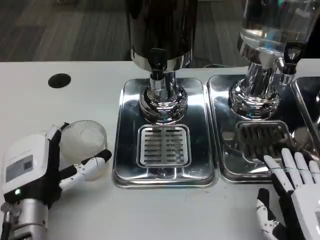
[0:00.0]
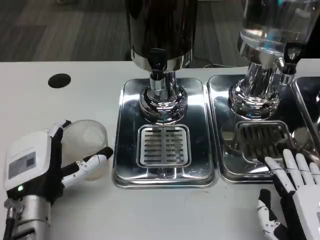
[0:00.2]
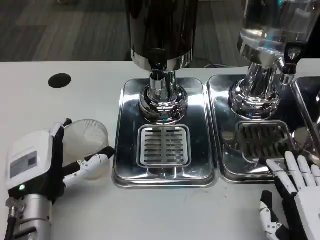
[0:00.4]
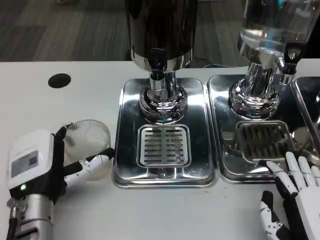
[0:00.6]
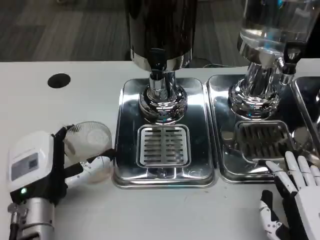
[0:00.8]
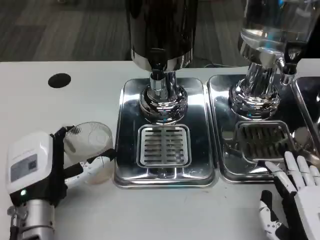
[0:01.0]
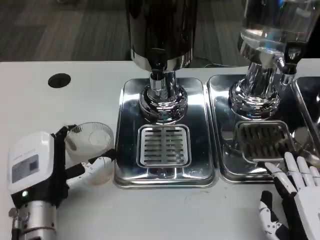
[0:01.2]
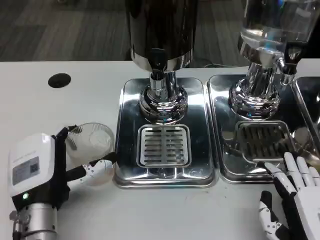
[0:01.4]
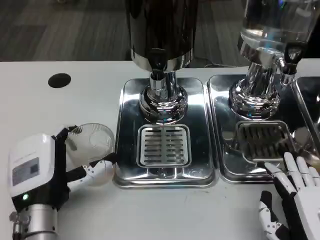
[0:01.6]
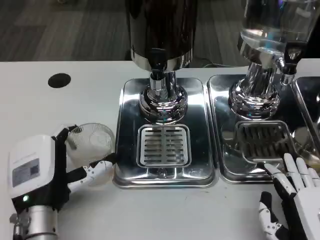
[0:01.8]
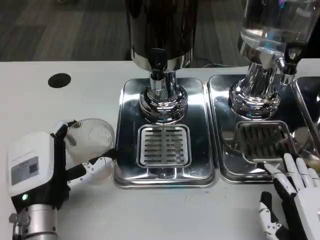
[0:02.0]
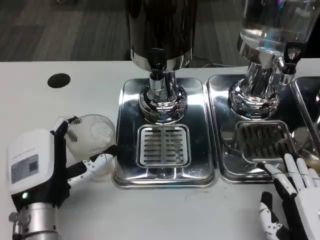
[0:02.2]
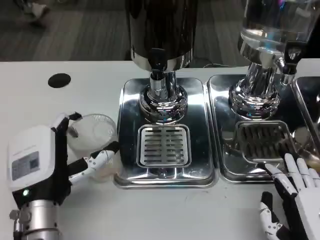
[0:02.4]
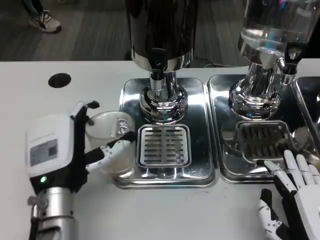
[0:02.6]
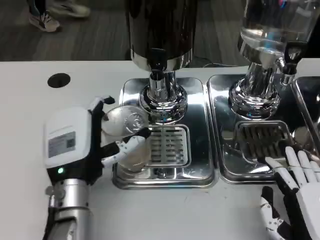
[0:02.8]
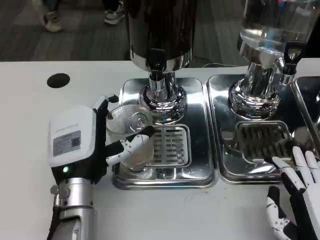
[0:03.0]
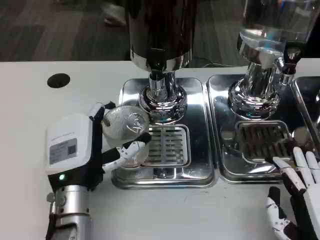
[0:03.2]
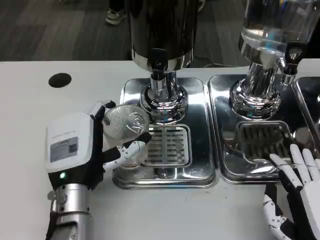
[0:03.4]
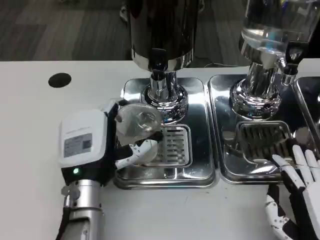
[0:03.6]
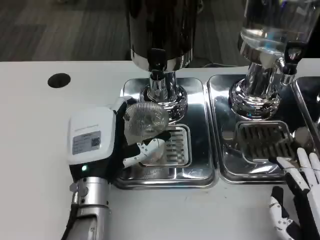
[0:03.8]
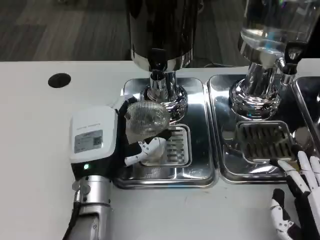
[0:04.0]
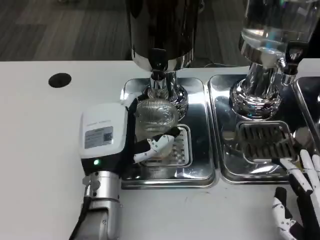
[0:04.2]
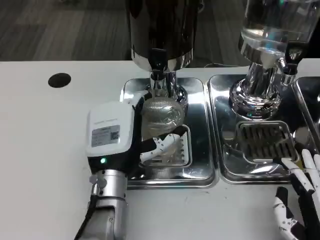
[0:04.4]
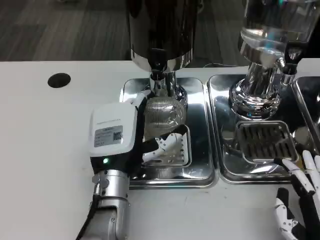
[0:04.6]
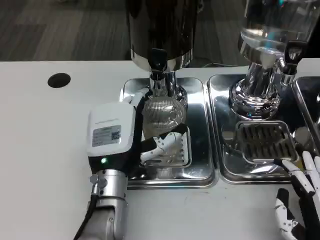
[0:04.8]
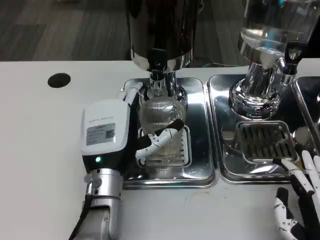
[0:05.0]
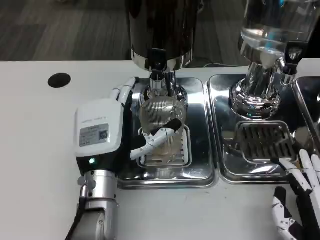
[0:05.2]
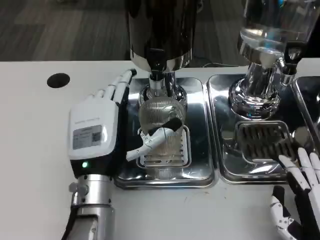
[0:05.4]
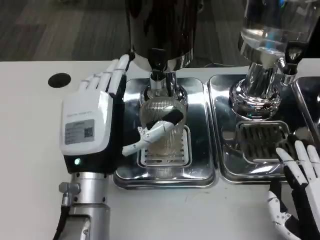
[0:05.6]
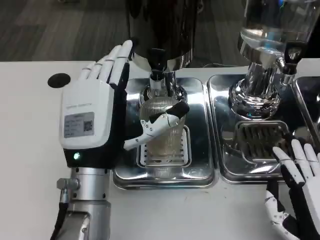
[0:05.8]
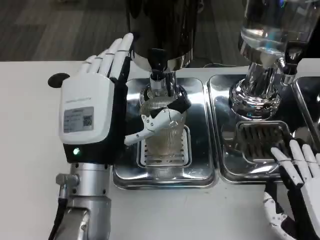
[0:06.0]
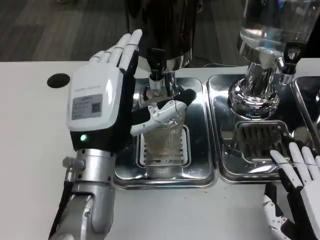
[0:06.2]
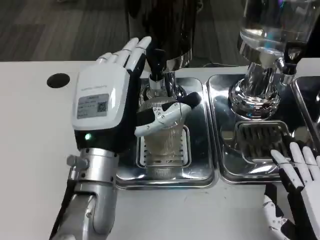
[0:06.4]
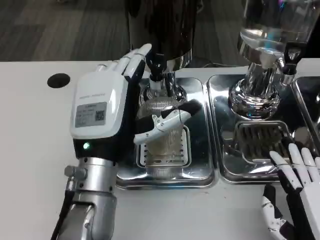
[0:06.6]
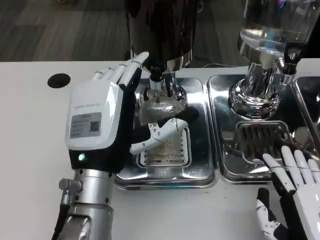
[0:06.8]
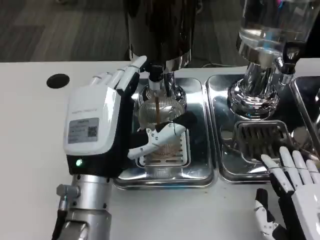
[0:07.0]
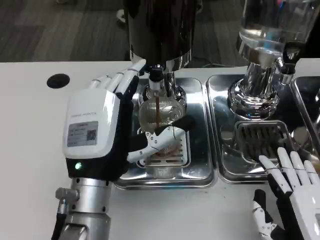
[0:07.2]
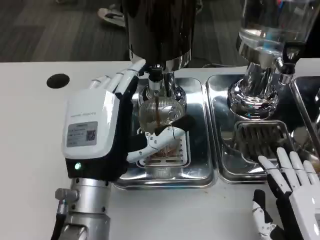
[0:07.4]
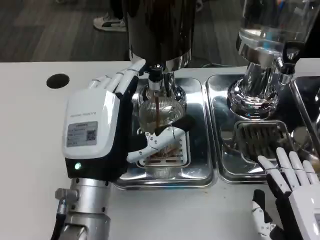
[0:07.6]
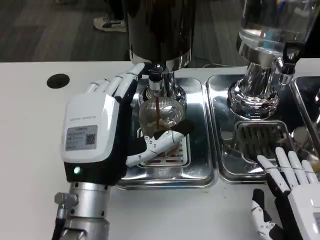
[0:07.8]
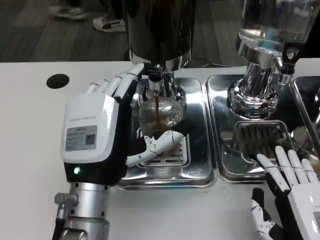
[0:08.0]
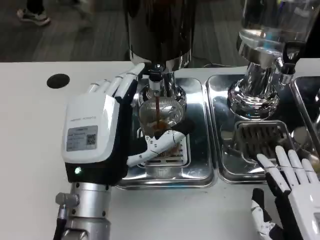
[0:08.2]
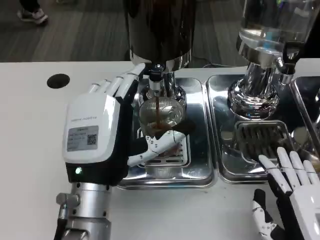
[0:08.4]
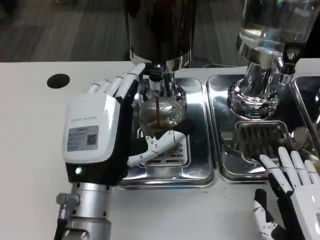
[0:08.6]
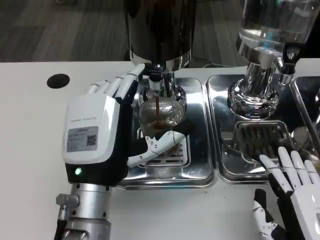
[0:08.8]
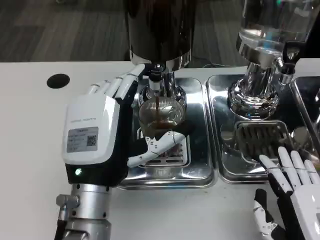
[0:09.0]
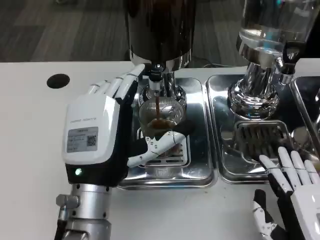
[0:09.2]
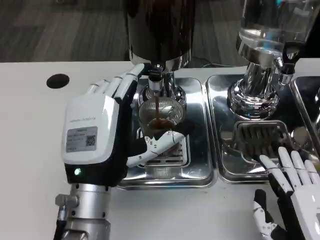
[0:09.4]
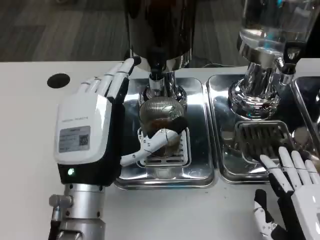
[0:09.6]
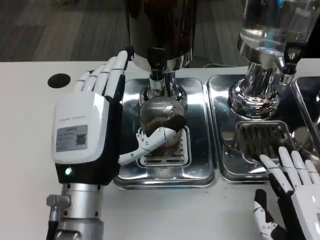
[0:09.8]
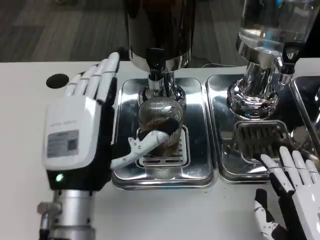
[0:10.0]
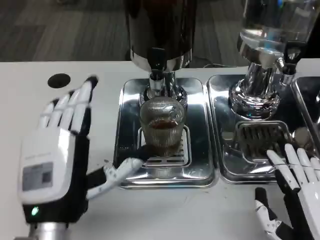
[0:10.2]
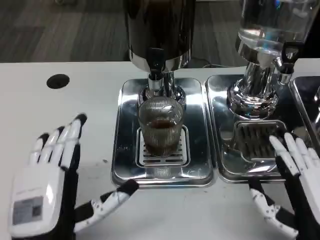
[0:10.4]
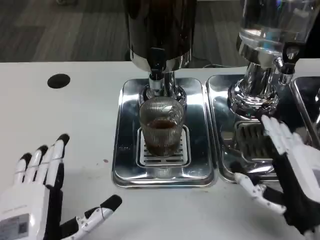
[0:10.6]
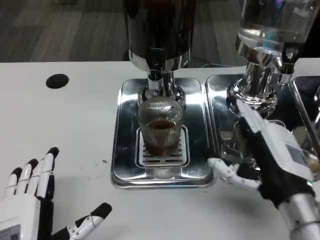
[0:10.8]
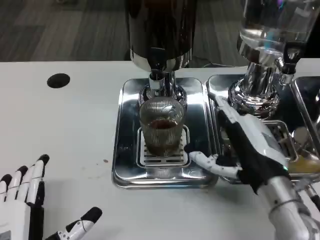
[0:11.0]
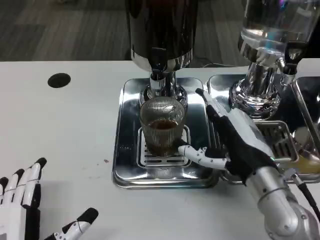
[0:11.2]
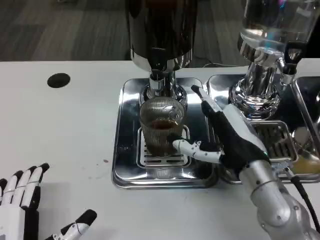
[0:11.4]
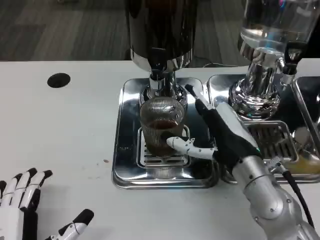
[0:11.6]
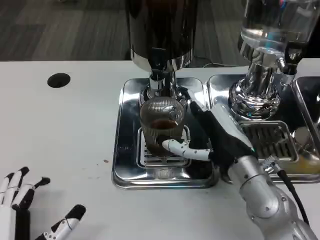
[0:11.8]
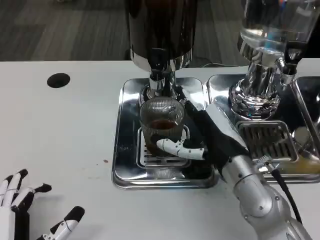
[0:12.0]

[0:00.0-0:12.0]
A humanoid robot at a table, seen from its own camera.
Task of the whole recording: Grasp the cup under the faucet to collect the drink, then remove the cup.
0:00.0 to 0:01.6: The hands stay close to where they were, moving slightly.
0:01.6 to 0:03.0: The left hand ends up about 5 cm from where it was.
0:04.4 to 0:06.0: The left hand heads upward, covering roughly 5 cm.
0:07.6 to 0:09.0: Both hands stay about where they are.
0:09.0 to 0:10.4: The left hand goes roughly 10 cm backward, to the left and downward.
0:10.4 to 0:12.0: The left hand changes place by roughly 5 cm. The right hand goes some 15 cm forward and to the left.

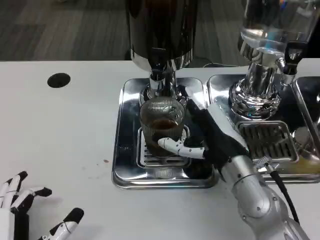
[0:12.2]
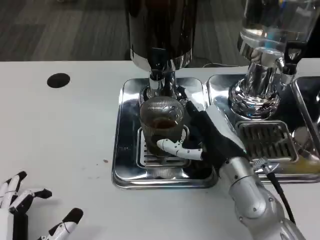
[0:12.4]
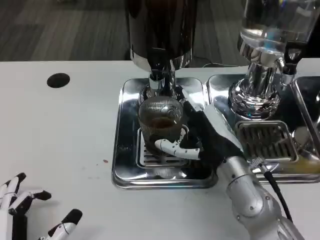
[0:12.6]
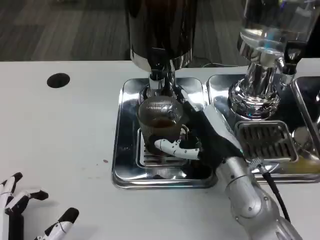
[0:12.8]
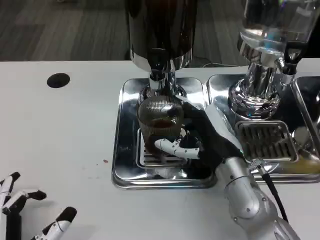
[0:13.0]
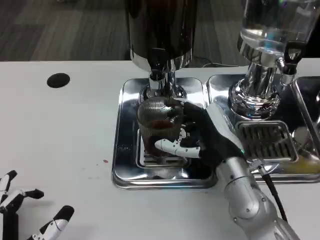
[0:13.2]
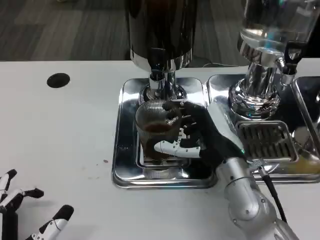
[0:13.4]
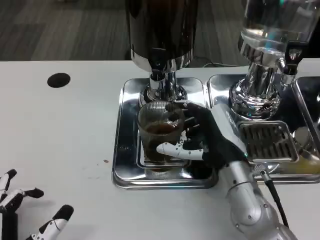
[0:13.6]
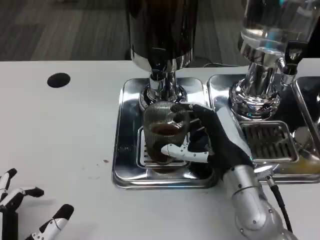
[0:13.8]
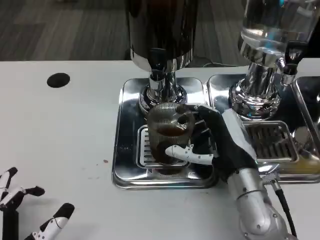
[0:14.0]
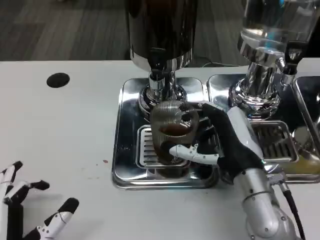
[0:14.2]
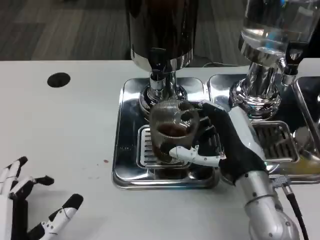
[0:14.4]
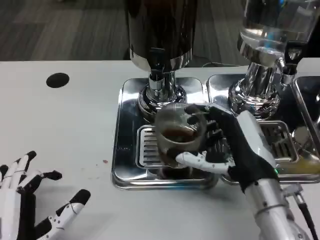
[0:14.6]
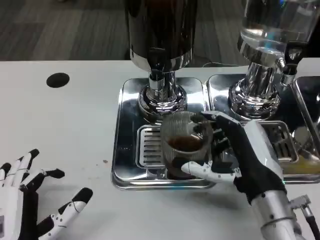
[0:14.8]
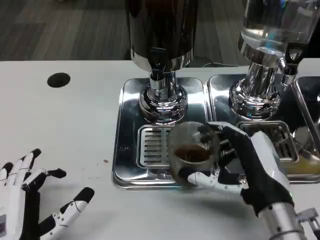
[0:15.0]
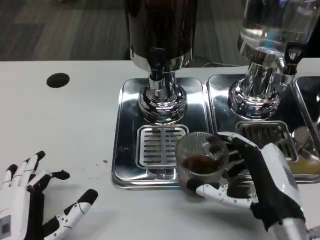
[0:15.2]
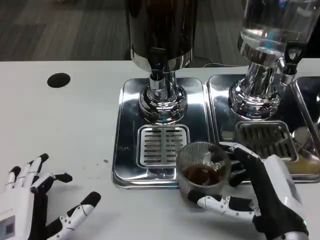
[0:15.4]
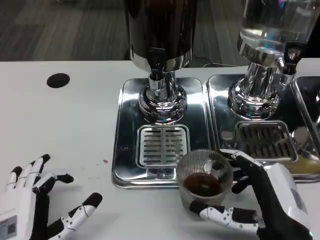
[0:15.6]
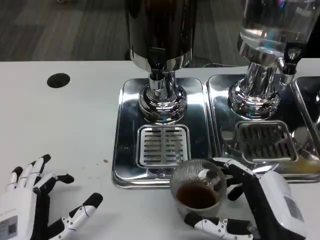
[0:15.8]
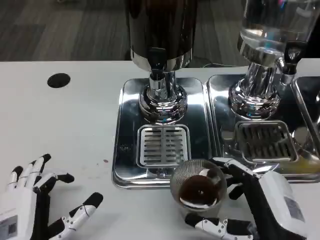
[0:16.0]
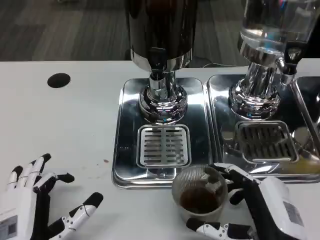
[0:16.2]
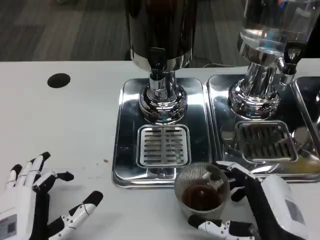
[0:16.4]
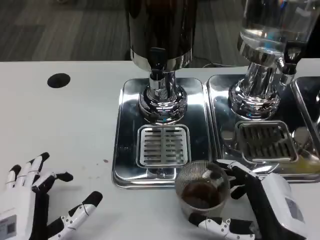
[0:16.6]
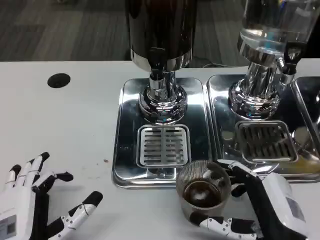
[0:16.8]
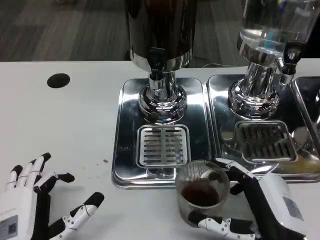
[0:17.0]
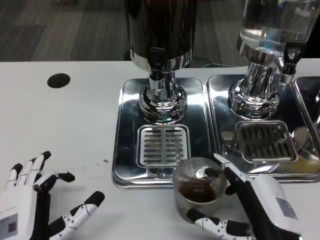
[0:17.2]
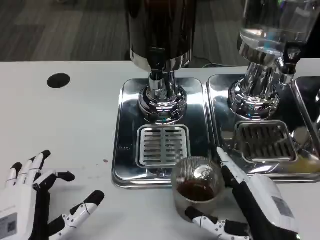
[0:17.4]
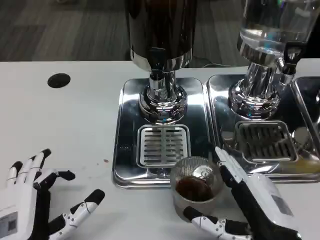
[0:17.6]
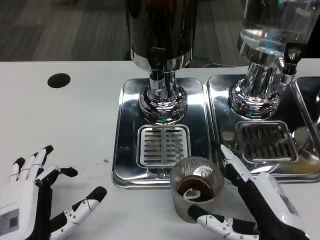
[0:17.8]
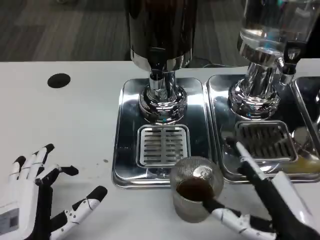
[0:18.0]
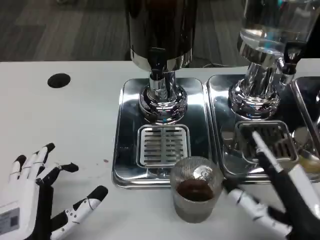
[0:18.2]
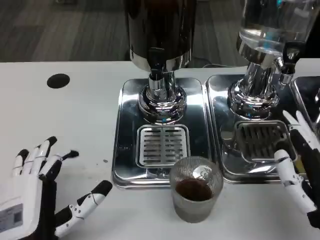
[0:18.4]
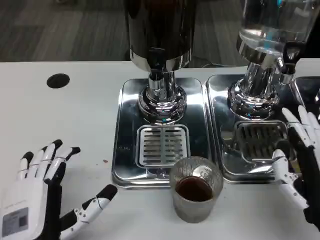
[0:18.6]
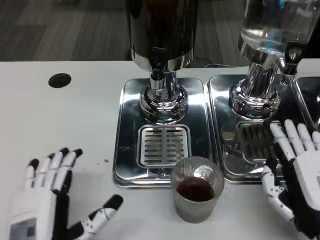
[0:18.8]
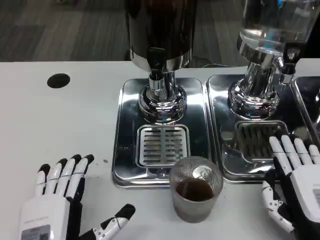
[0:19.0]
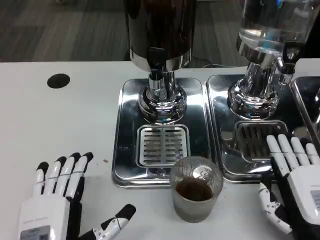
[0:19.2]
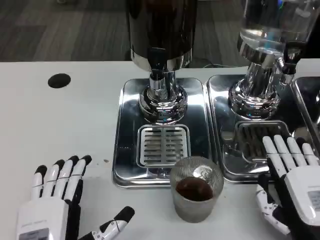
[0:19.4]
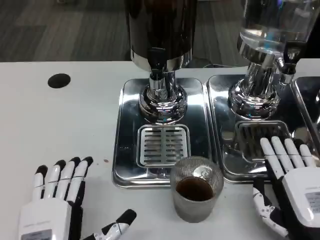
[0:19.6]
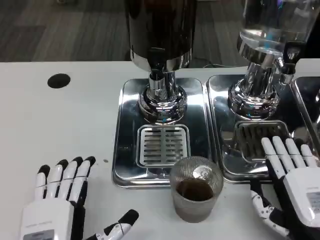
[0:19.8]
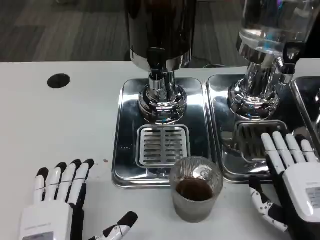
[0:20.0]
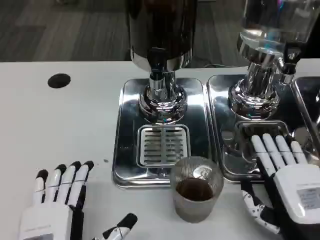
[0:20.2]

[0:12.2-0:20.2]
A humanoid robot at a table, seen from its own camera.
Task of the whole recording: Grasp the cup under the faucet to collect the drink, then remove the cup.
0:12.2 to 0:13.8: The hands make only small movements.
0:13.8 to 0:15.4: The right hand shifts approximately 10 cm backward.
0:15.4 to 0:17.0: The hands make only small movements.
0:17.0 to 0:18.6: The right hand changes place by some 5 cm.
0:18.6 to 0:20.2: There are only small adjustments of the hands.

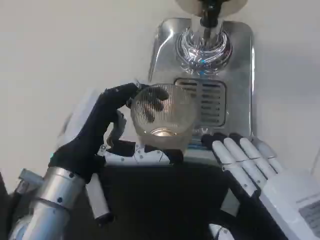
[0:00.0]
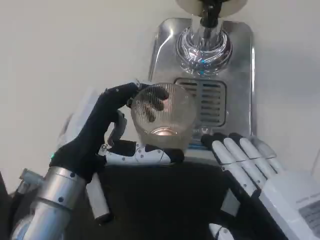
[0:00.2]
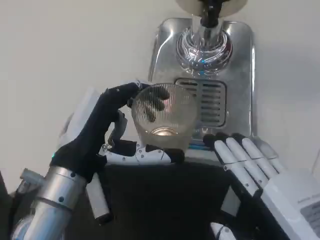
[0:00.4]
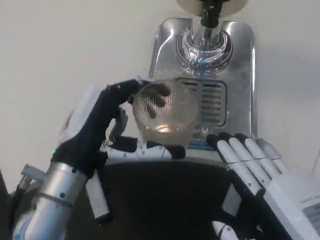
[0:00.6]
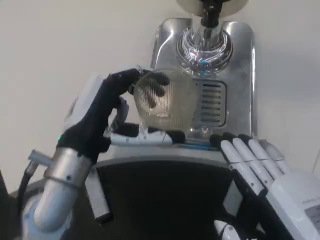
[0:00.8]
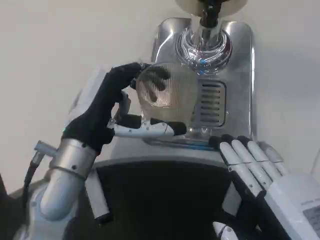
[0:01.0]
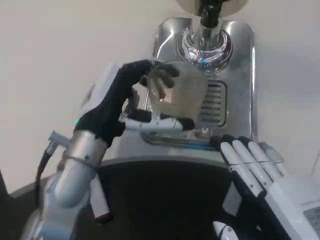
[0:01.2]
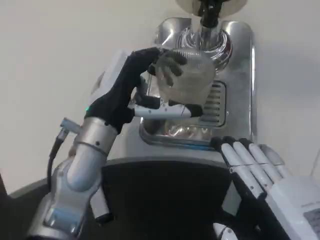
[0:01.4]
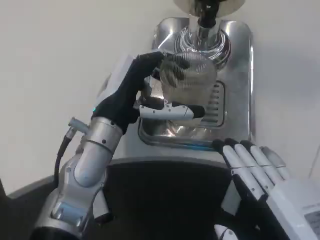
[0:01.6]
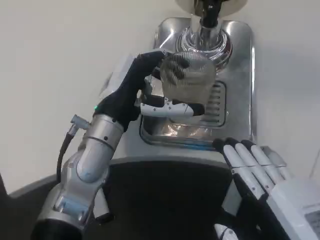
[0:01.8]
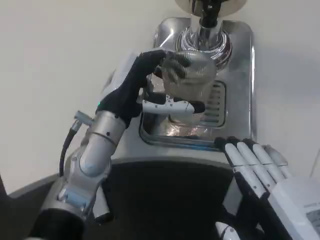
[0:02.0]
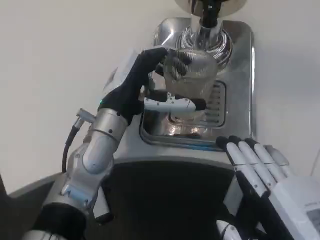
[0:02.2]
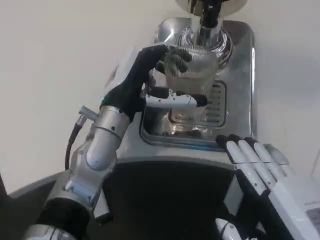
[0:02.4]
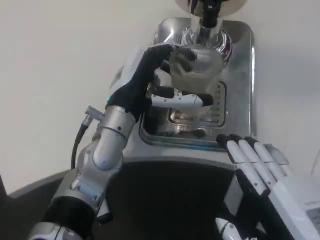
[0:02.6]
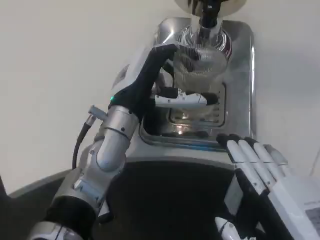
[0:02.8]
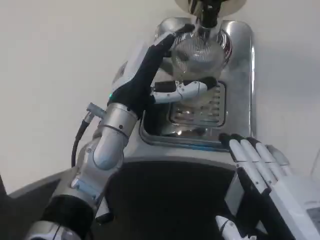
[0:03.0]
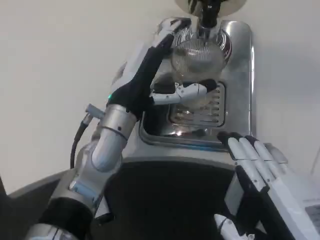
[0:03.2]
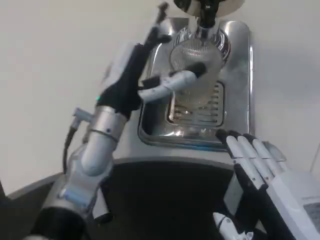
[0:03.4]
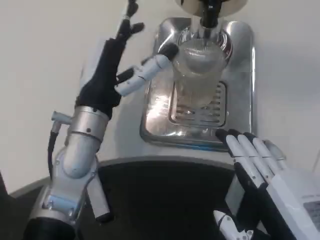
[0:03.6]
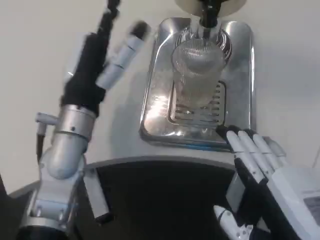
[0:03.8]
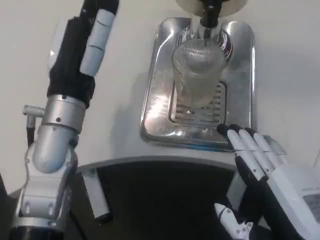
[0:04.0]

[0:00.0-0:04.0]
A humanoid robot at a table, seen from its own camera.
Task of the whole recording: Grasp the cup under the faucet to collect the drink, then remove the cup.
0:00.0 to 0:01.4: The left hand moves forward, some 10 cm.
0:02.6 to 0:04.0: The left hand heads to the left, covering roughly 5 cm.
